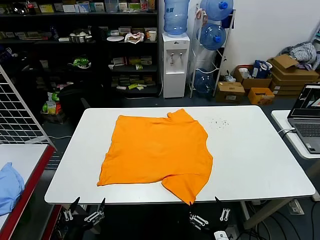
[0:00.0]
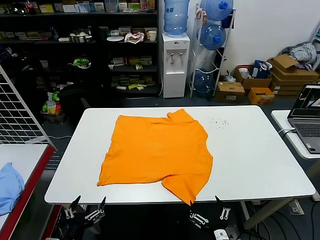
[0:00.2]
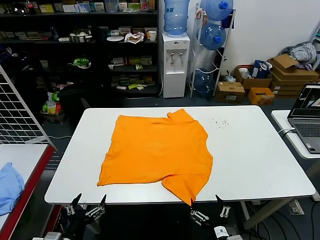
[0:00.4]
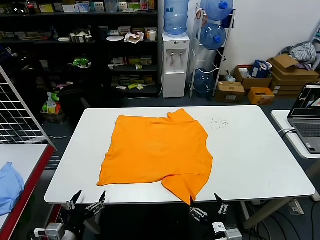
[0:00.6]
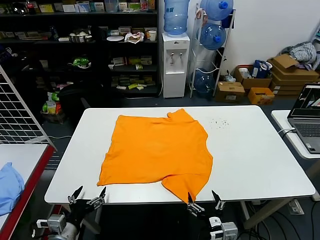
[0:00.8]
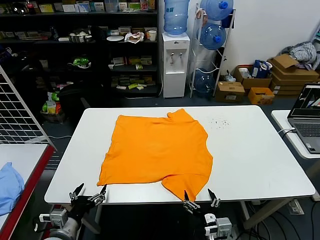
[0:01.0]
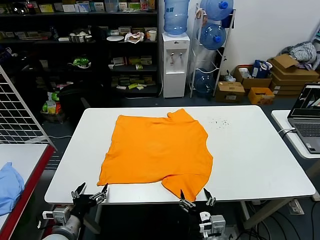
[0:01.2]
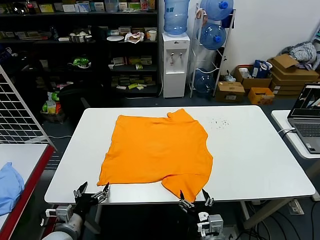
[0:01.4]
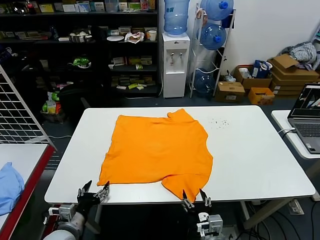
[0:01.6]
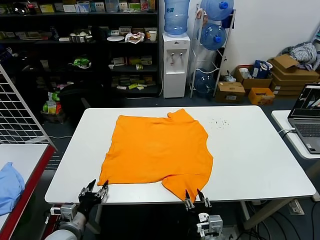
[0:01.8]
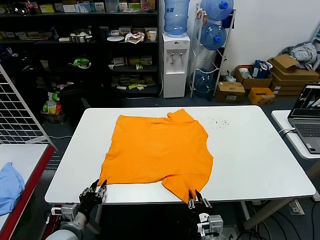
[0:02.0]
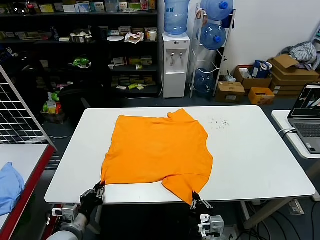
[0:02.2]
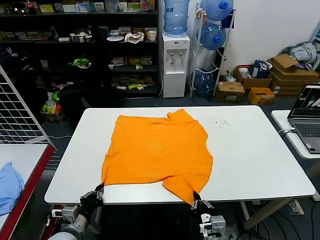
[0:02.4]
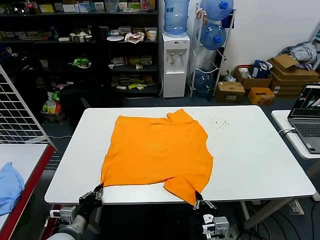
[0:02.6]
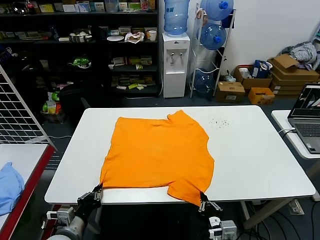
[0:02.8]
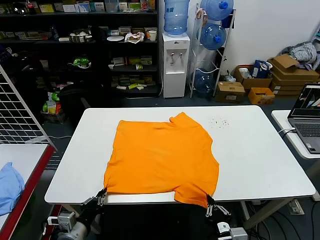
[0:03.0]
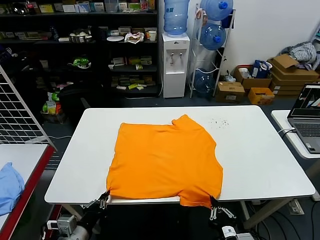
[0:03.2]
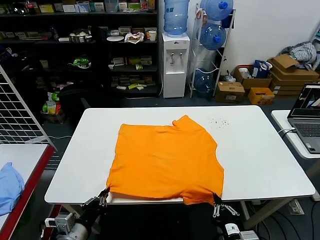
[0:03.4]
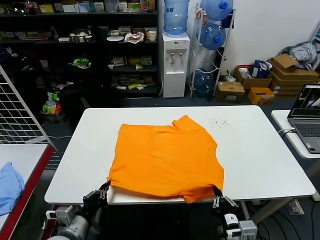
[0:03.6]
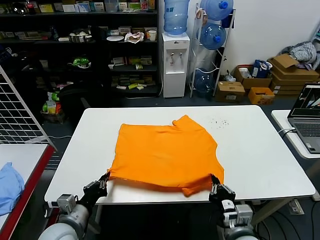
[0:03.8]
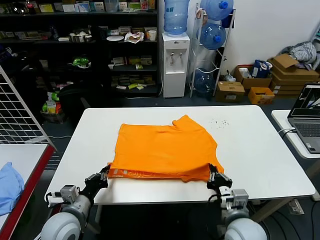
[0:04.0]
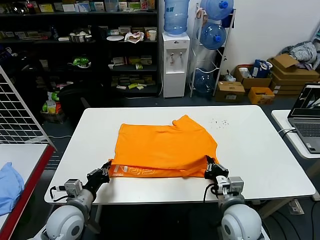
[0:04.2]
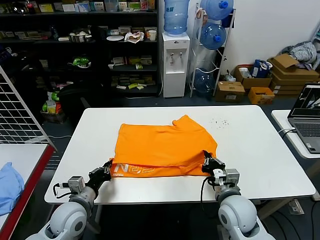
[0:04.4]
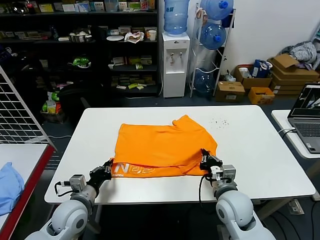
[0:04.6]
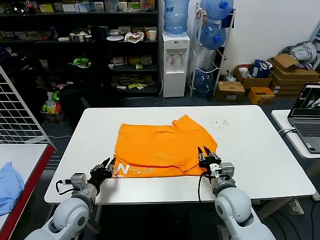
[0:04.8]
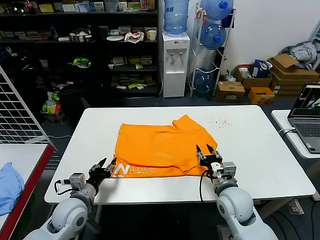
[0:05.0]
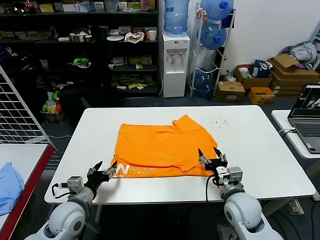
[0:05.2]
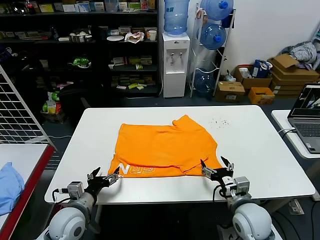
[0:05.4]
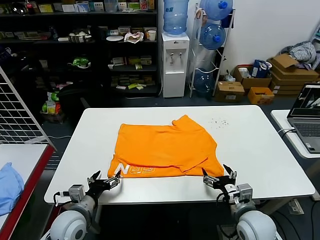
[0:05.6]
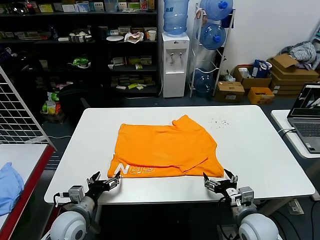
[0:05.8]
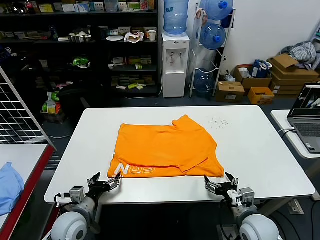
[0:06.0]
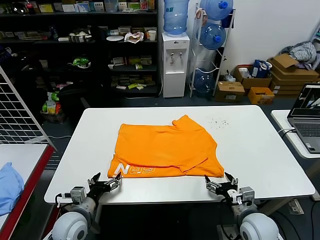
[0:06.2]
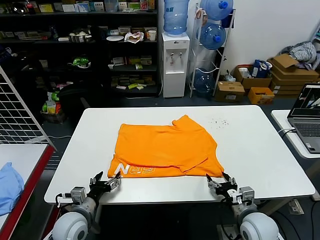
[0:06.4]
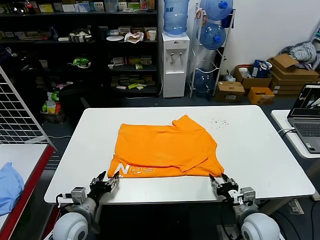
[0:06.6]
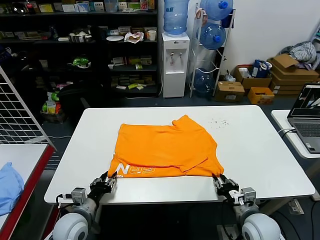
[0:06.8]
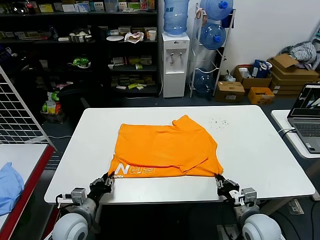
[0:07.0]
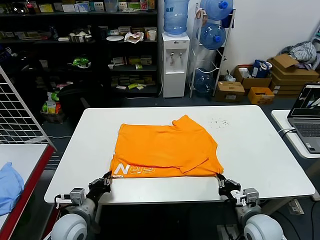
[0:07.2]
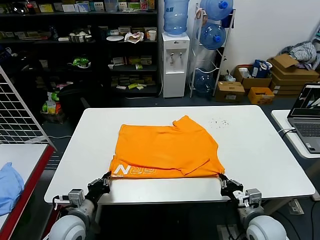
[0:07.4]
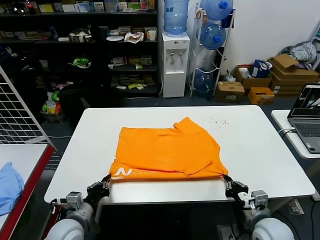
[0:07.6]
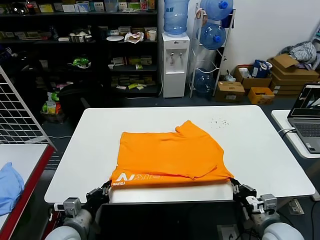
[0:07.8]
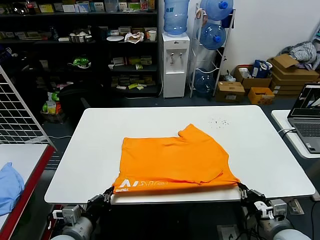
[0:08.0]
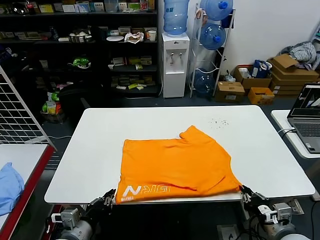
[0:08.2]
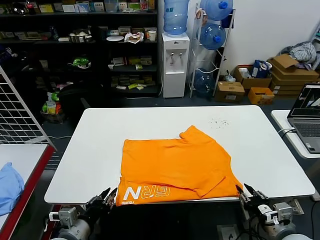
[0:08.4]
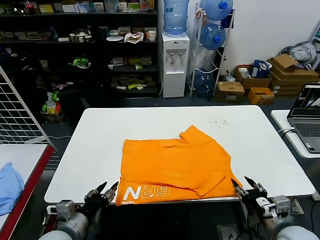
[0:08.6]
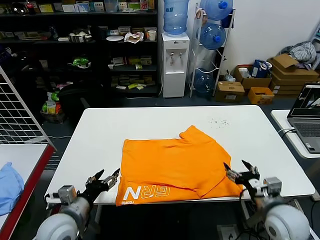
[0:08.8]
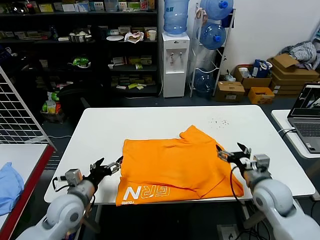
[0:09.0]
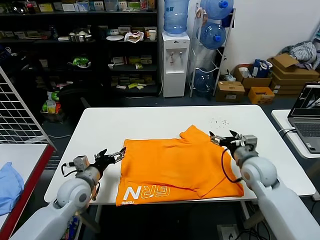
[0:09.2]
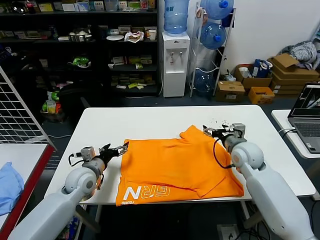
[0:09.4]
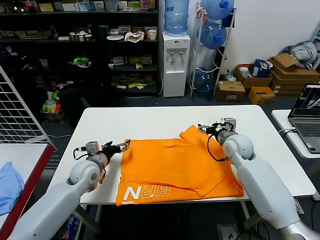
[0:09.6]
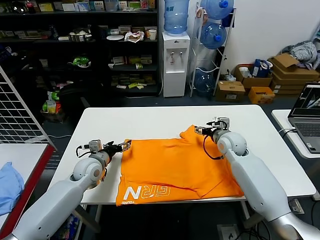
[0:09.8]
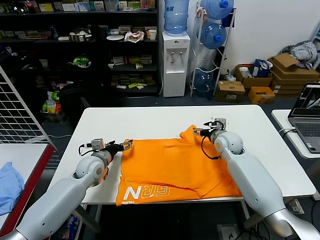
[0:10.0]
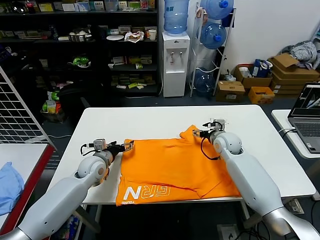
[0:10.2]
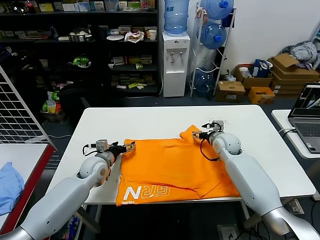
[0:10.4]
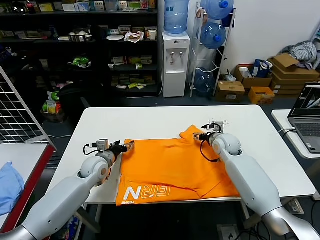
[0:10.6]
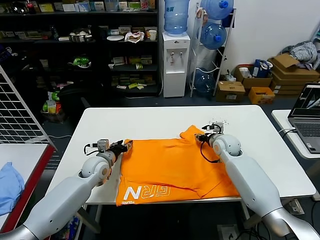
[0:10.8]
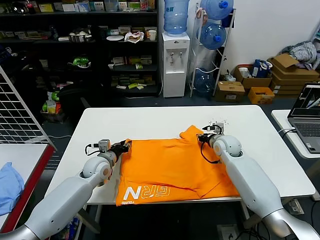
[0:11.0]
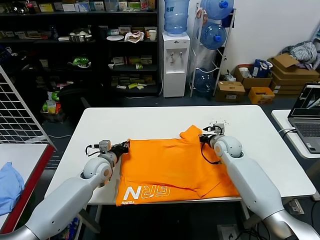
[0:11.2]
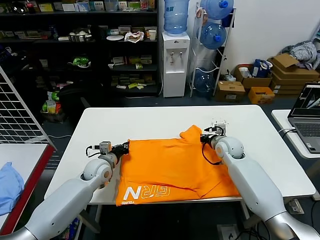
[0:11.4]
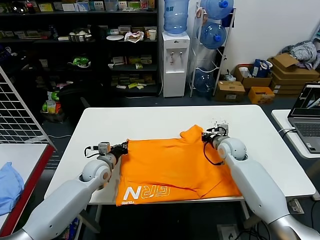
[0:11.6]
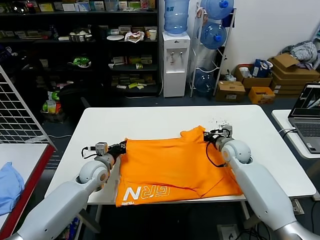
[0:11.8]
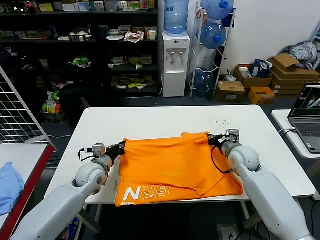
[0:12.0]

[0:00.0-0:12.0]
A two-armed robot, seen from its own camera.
Task of the whole recording: fold and organize the clothes.
Step, 0:00.0 to 0:02.2: use both grippers simultaneously to clamp the lower edge of the clothing fabric.
Step, 0:02.4 to 0:04.6: use both grippers to drag the lower edge of the fabric forward and fold it over the upper edge.
Step, 0:04.8 to 0:08.2: Drag the clothes downward with both gripper.
Step, 0:08.4 to 0:11.2: use both grippers simultaneously to clamp the upper edge of the clothing fabric.
0:01.6 to 0:03.0: The right gripper heads backward and upward, covering some 10 cm, and closes up; the left gripper shifts by about 5 cm, and closes up.
0:03.0 to 0:04.4: The left gripper travels forward by roughly 10 cm. The right gripper travels forward by roughly 15 cm.
0:04.4 to 0:06.0: The left gripper opens. The right gripper is displaced to the right by some 5 cm, and opens.
0:06.0 to 0:07.6: The right gripper closes. Meanwhile the left gripper closes up.
0:07.6 to 0:09.0: The right gripper goes roughly 15 cm forward and upward, and opens; the left gripper moves forward, roughly 5 cm, and opens its fingers.
0:09.0 to 0:10.4: Both grippers move forward, some 15 cm.
0:10.4 to 0:12.0: The left gripper closes. The right gripper heads backward, covering some 10 cm, and closes up.

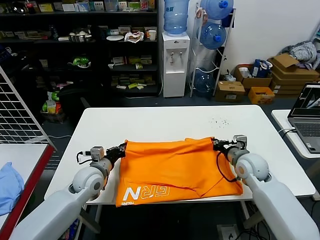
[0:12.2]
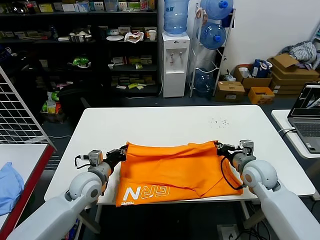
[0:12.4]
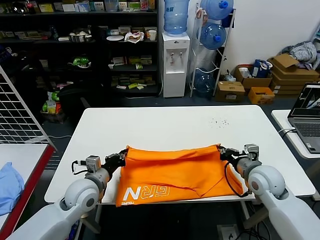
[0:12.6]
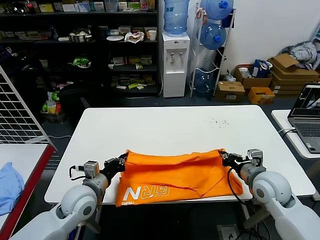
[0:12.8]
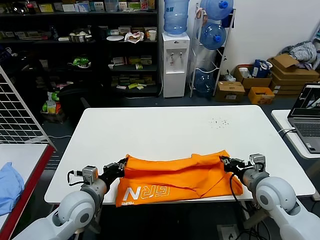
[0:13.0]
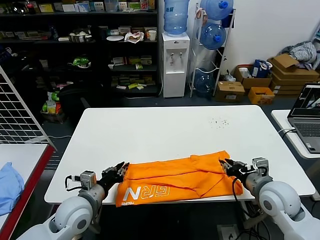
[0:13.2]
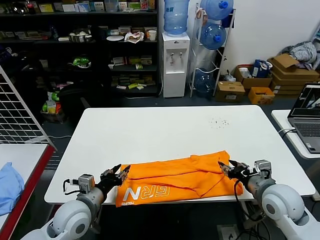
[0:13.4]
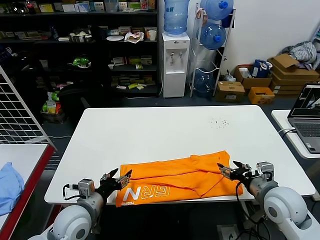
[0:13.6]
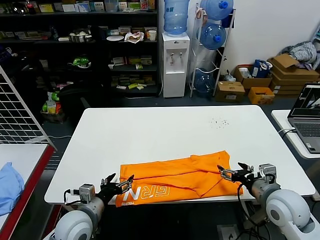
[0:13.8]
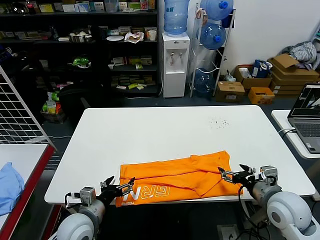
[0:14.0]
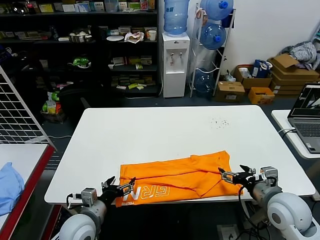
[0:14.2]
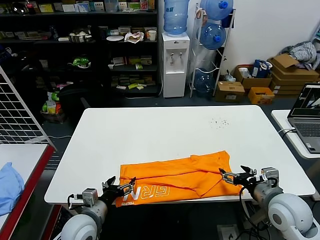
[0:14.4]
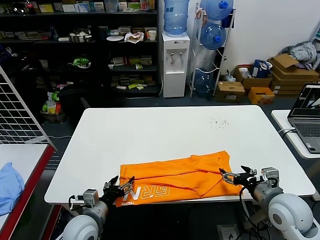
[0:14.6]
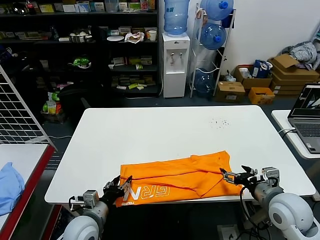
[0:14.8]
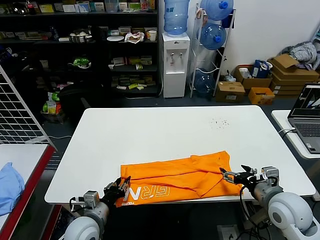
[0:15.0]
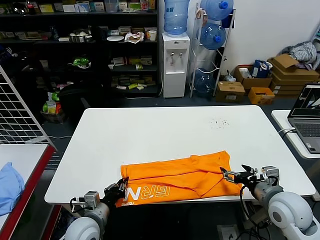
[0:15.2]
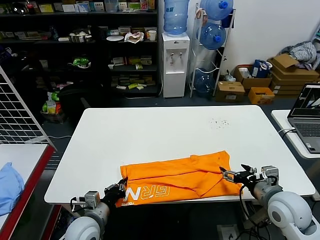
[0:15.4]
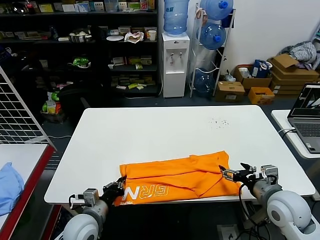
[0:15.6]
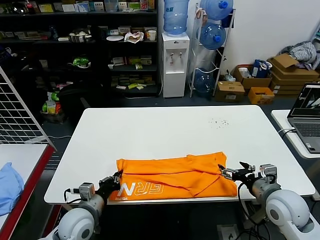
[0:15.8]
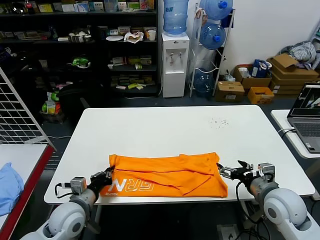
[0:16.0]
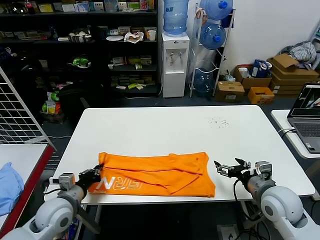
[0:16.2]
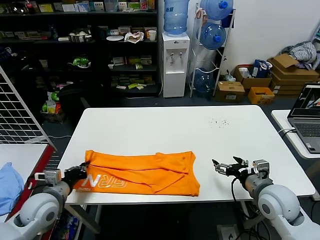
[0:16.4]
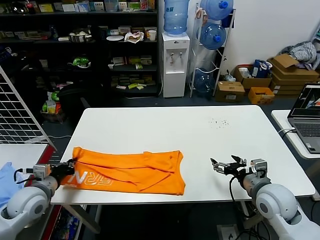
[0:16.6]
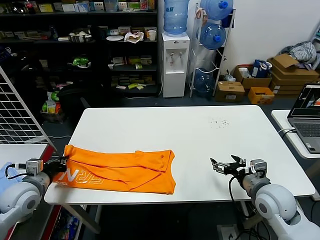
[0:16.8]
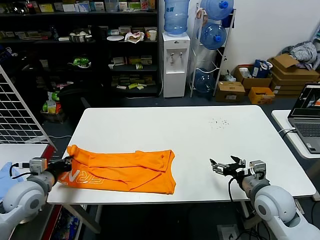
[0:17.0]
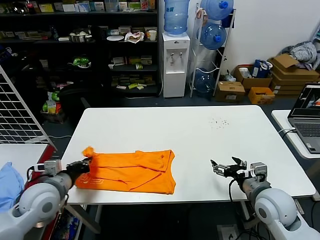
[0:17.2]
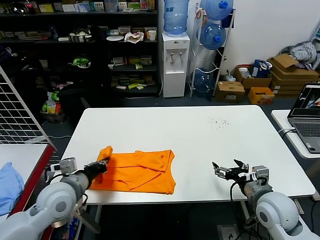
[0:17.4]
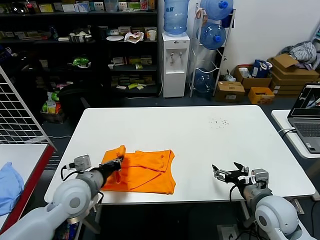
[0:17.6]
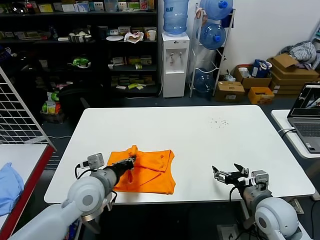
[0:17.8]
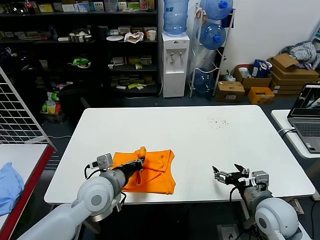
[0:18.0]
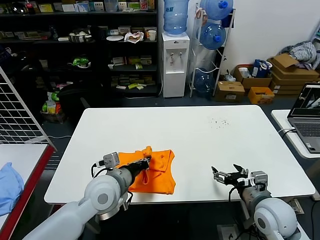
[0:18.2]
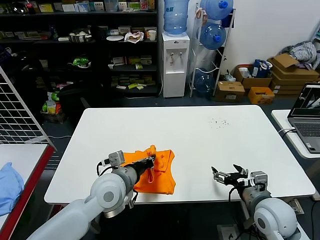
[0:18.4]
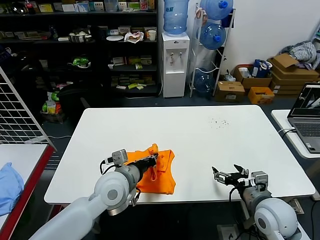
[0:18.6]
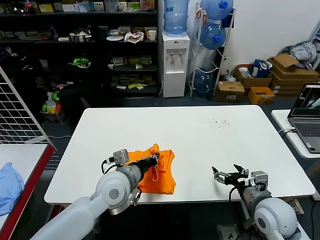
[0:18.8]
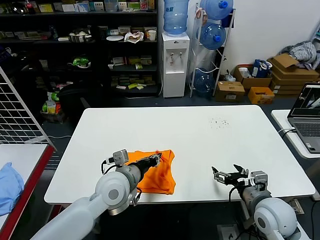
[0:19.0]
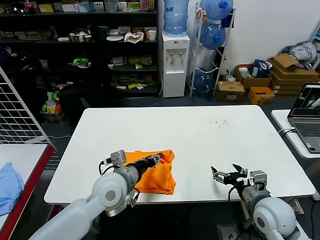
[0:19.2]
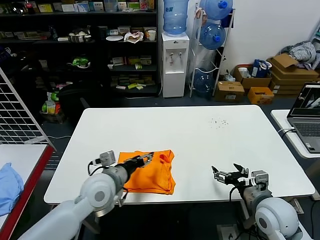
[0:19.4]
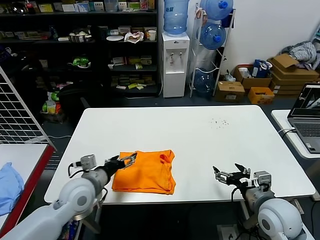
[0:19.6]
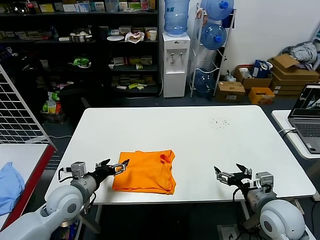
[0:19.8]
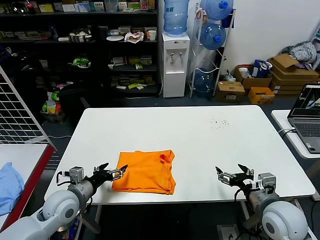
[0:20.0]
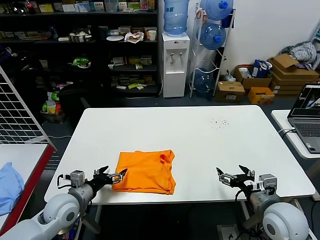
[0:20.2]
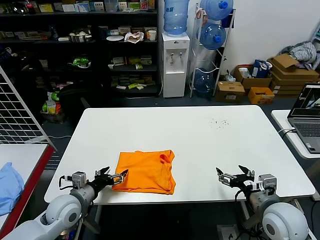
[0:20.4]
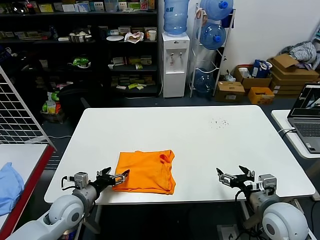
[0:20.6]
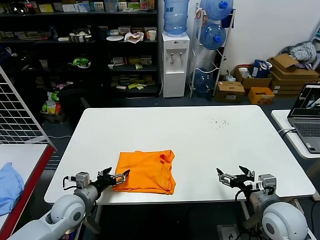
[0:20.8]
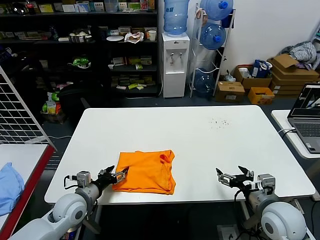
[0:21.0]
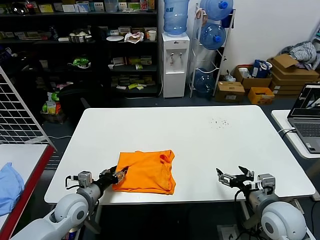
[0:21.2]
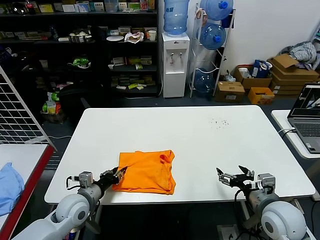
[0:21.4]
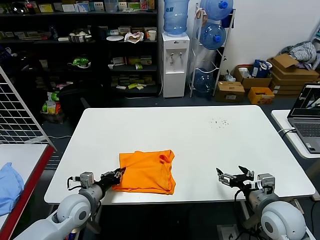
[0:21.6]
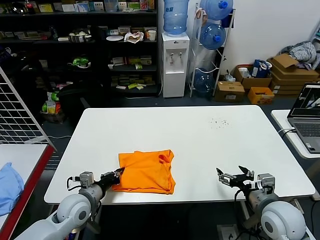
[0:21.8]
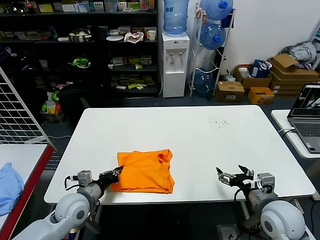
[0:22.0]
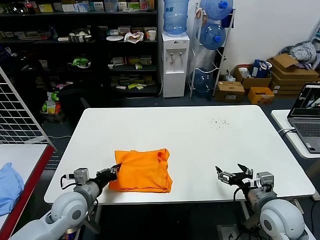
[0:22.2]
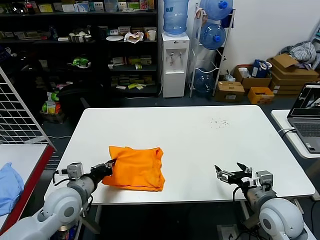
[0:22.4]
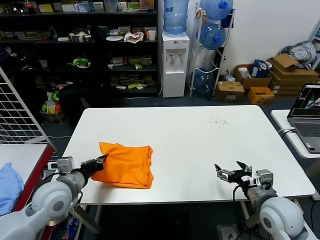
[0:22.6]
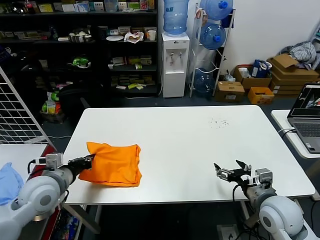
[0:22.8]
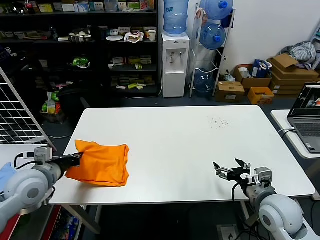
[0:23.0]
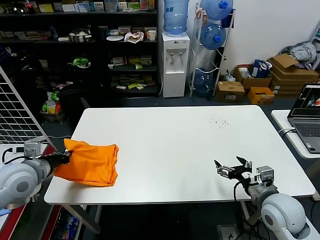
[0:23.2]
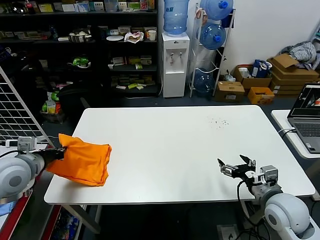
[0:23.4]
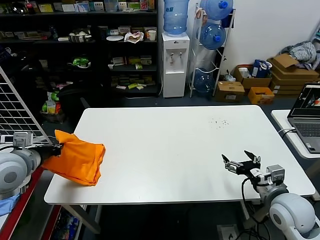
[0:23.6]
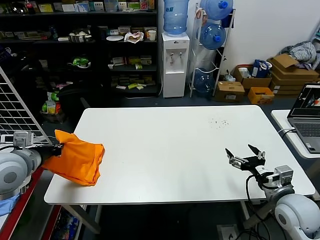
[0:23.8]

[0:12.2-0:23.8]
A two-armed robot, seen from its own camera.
Task of the whole recording: fold and organize the clothes.
Step, 0:13.4 to 0:15.2: use the left gripper to clamp the left edge of the fabric.
Step, 0:15.4 to 0:19.0: use the left gripper to drag the left edge of the fabric to the left and folds it over the right edge.
0:12.2 to 0:13.6: Both grippers move backward, about 15 cm. The left gripper opens its fingers. Meanwhile the right gripper opens its fingers.
0:13.6 to 0:15.0: The left gripper moves downward, roughly 5 cm.
0:15.0 to 0:16.6: The left gripper travels to the left and upward by approximately 15 cm, and closes its fingers.
0:16.6 to 0:18.0: The left gripper heads to the right, covering about 20 cm.
0:18.0 to 0:19.4: The left gripper opens.
0:19.4 to 0:21.0: The left gripper travels to the left and downward by approximately 15 cm.
0:21.0 to 0:22.4: The left gripper moves upward, approximately 5 cm, and closes.
0:22.4 to 0:23.8: The left gripper heads upward and to the left, covering roughly 20 cm.
